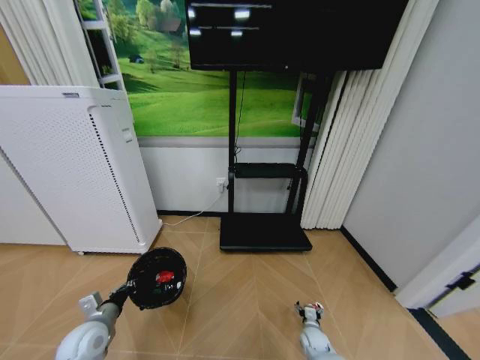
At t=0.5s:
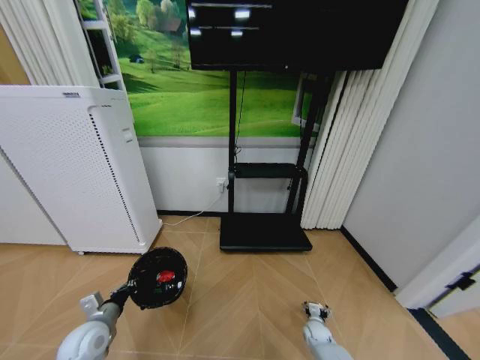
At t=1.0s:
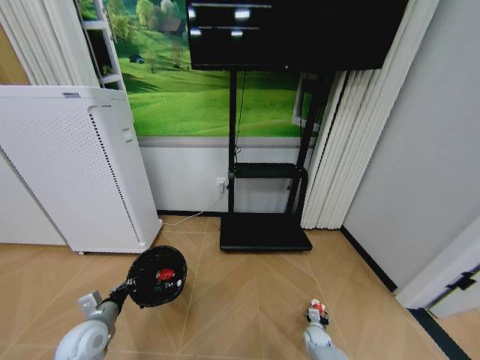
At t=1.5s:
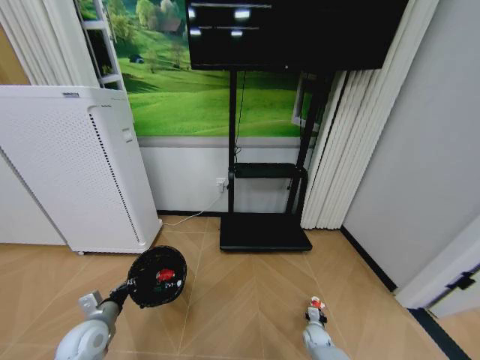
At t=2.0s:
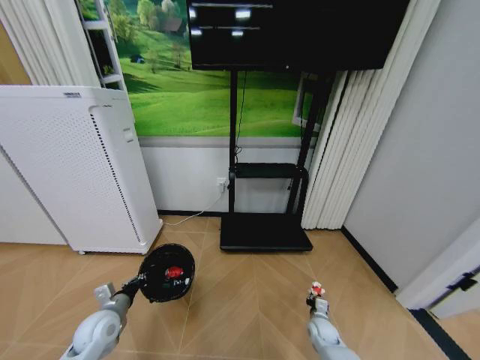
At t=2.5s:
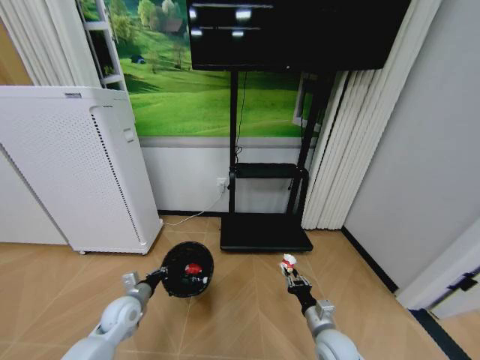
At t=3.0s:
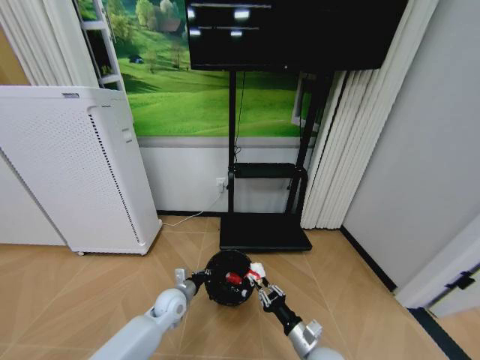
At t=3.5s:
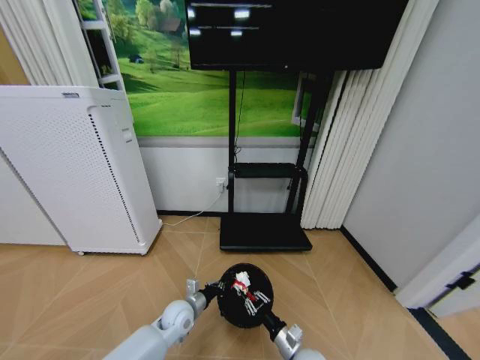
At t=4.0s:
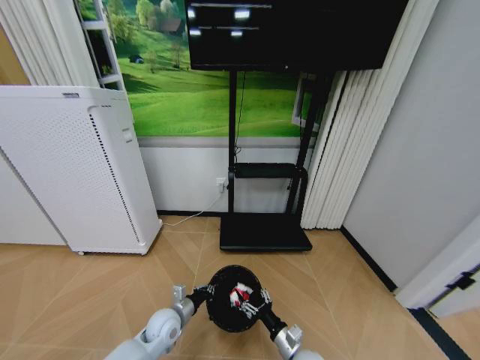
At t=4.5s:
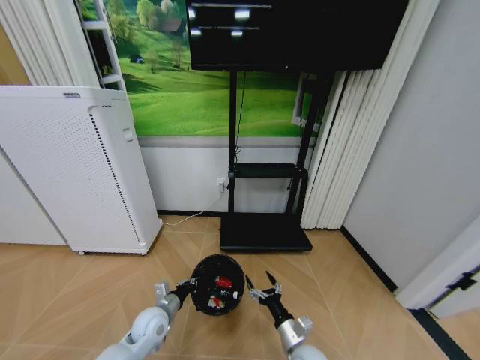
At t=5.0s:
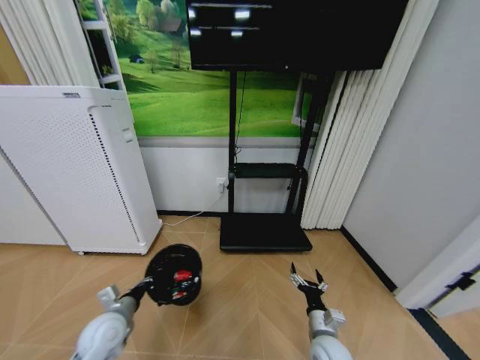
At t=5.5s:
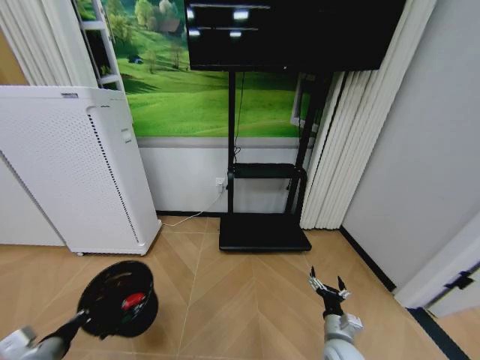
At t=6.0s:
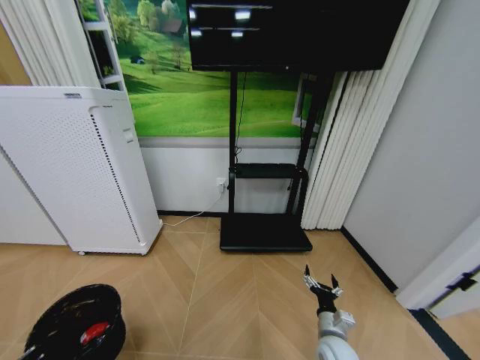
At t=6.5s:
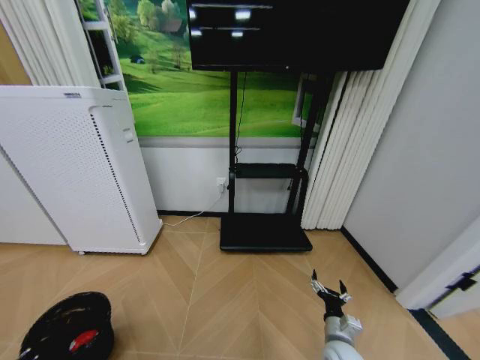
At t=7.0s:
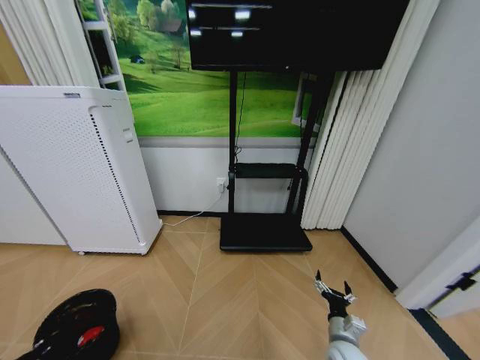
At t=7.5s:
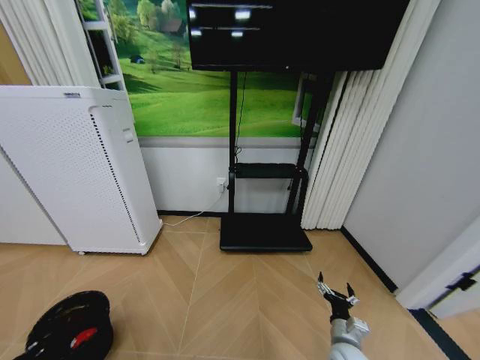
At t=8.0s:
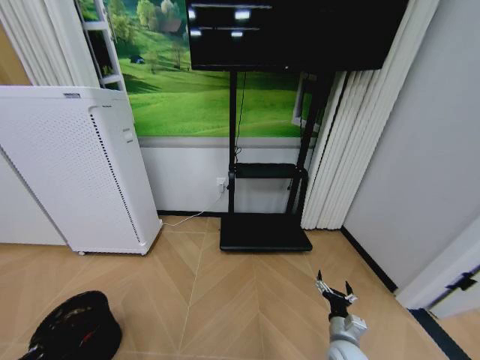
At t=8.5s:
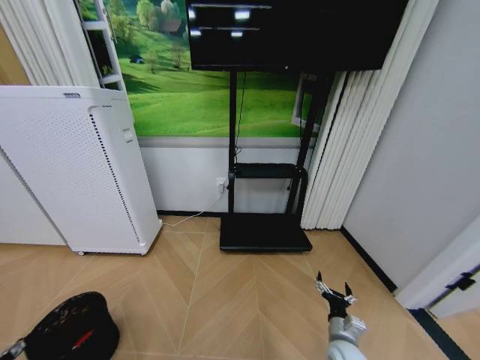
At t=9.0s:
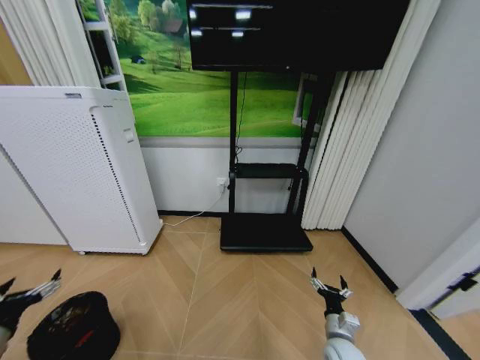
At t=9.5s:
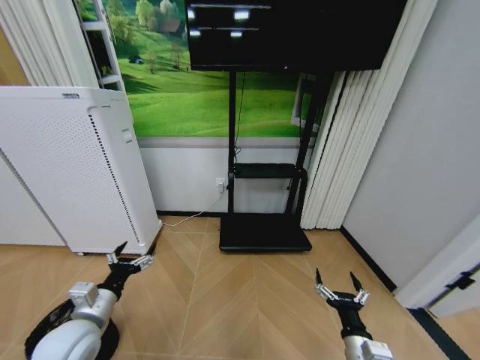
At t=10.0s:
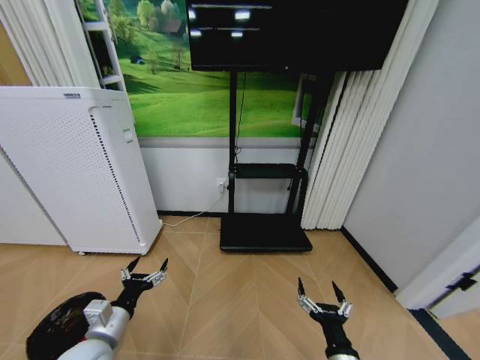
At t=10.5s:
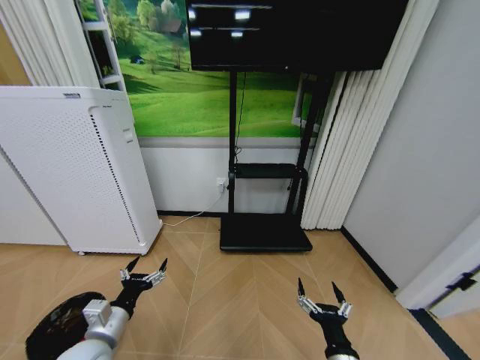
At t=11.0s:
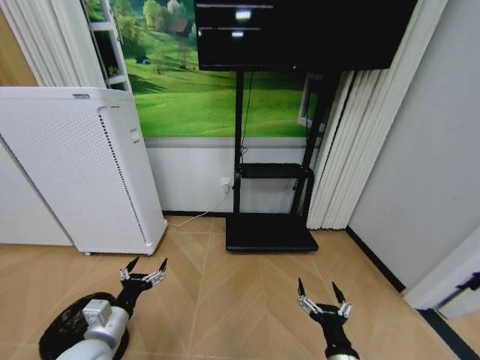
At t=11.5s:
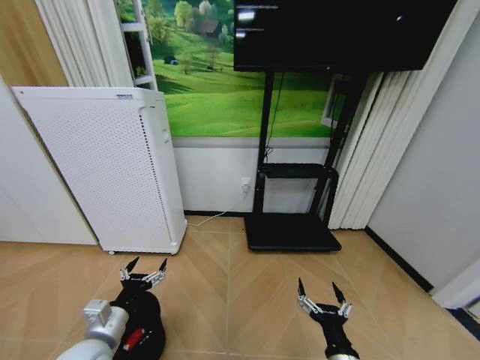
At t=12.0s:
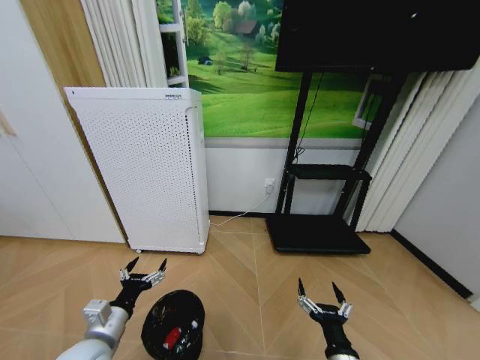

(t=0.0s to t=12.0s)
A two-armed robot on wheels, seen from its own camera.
Task of the whole recording: Pick up the trash bin and place the garbage on the floor into it.
t=0.0s - t=2.0s: The right gripper closes.
t=2.0s - t=4.0s: The right gripper goes approximately 20 cm to the left, backward and upward, and opens up. Meanwhile the left gripper travels to the right by some 15 cm.
t=4.0s - t=6.0s: The right gripper moves to the right, roughly 10 cm, while the left gripper heads to the left, backward and upward, covering roughly 35 cm.
t=6.0s - t=8.0s: The left gripper shifts about 10 cm downward and to the left.
t=8.0s - t=10.0s: The left gripper travels to the right and upward by approximately 30 cm, and opens its fingers, while the right gripper heads backward, upward and to the left, covering approximately 20 cm.

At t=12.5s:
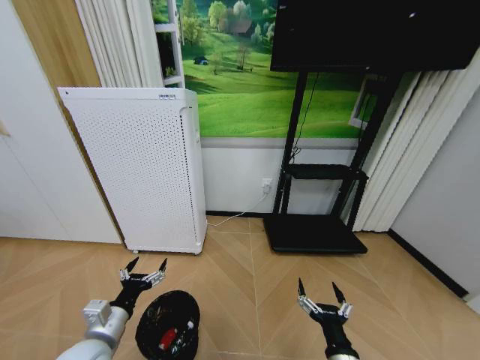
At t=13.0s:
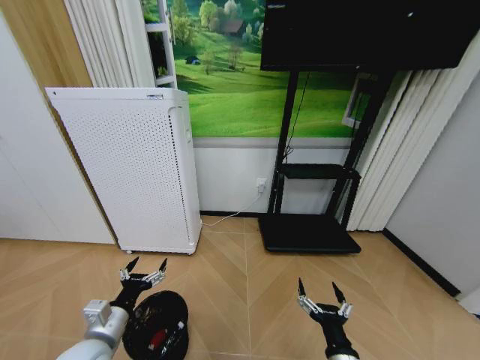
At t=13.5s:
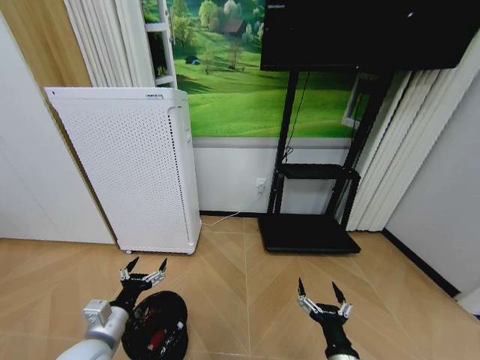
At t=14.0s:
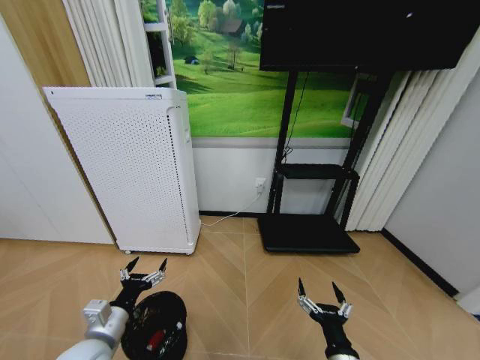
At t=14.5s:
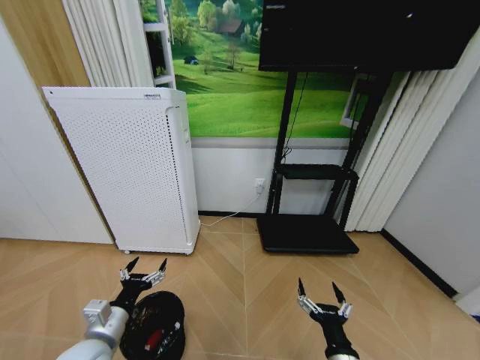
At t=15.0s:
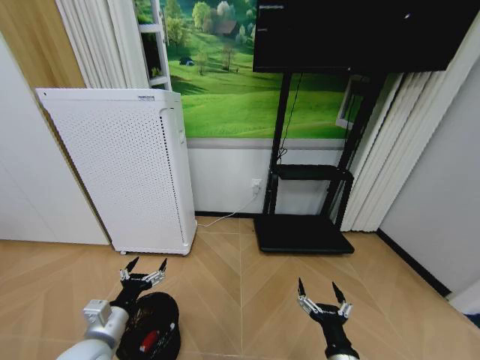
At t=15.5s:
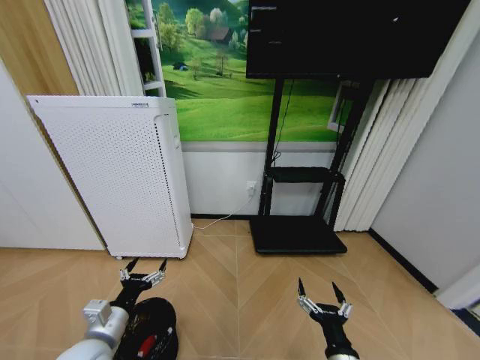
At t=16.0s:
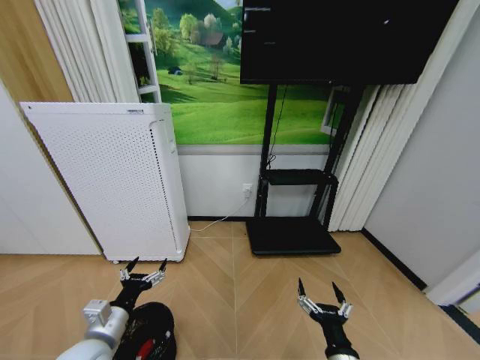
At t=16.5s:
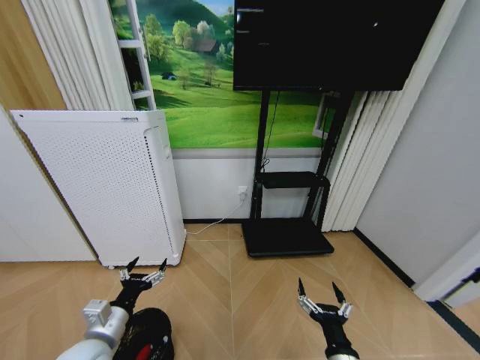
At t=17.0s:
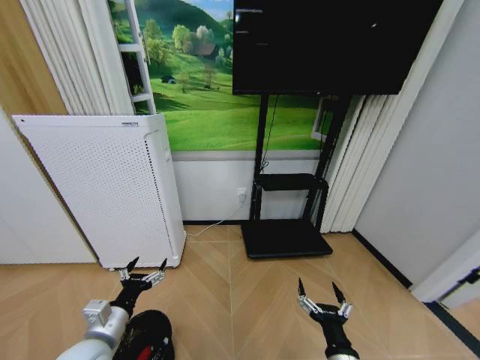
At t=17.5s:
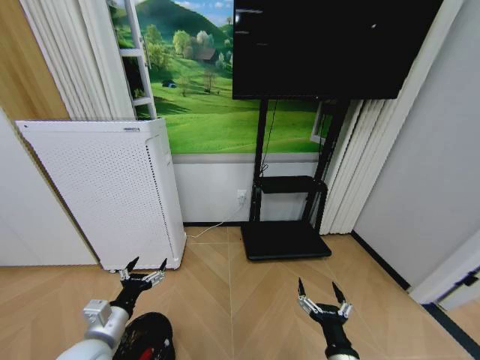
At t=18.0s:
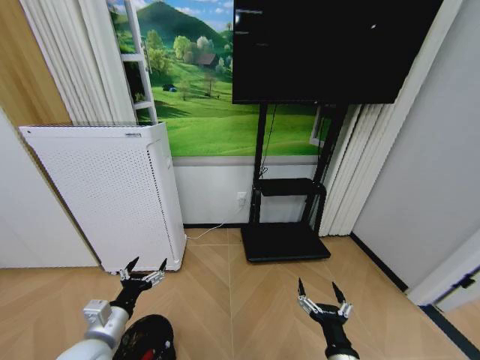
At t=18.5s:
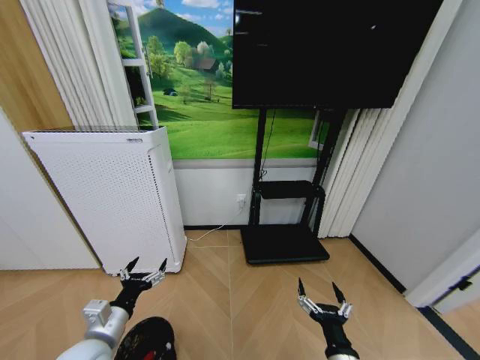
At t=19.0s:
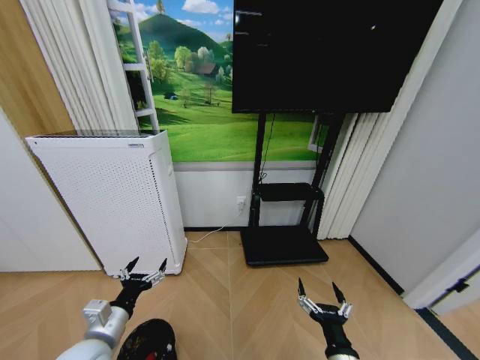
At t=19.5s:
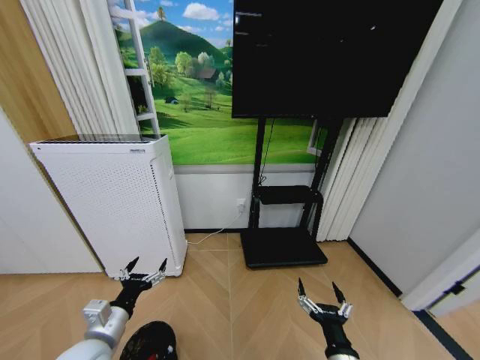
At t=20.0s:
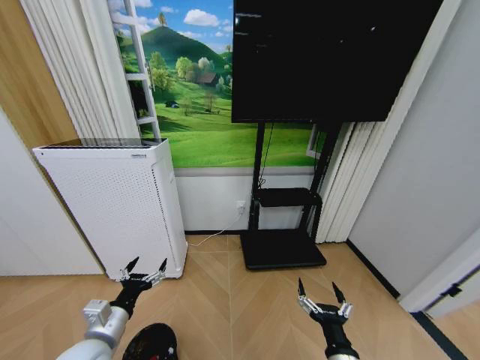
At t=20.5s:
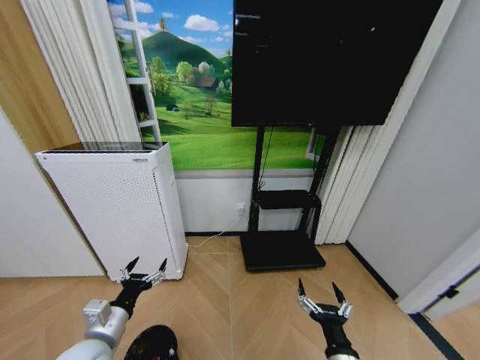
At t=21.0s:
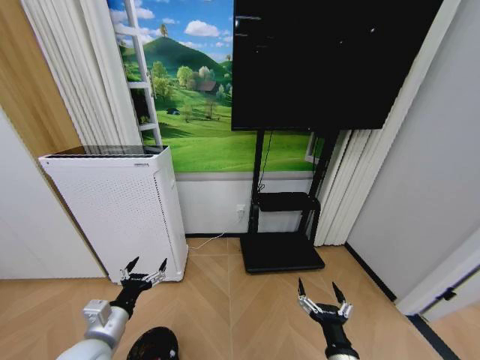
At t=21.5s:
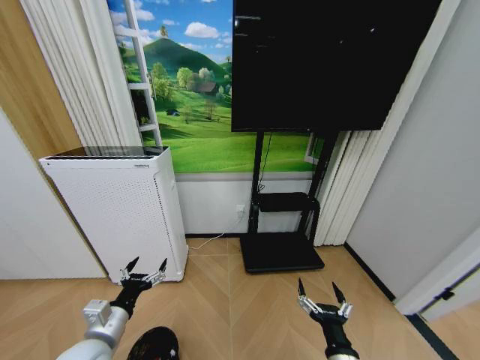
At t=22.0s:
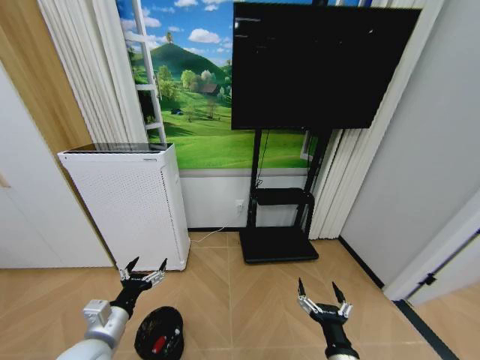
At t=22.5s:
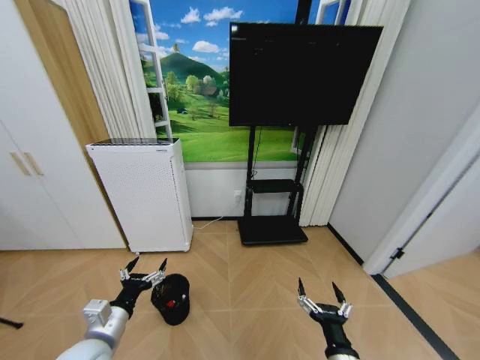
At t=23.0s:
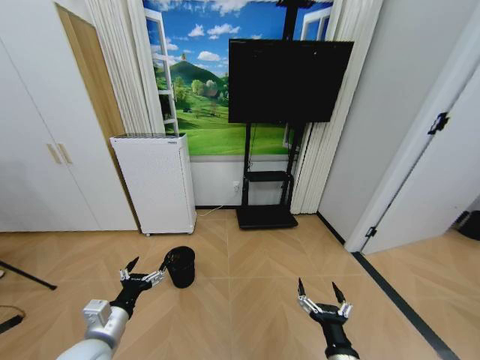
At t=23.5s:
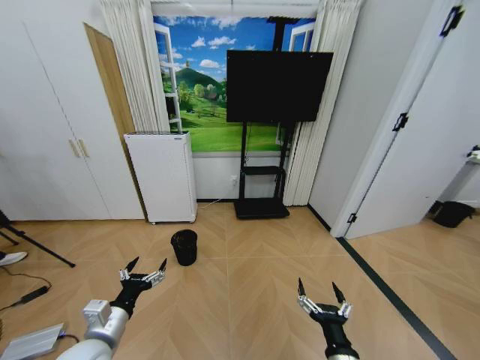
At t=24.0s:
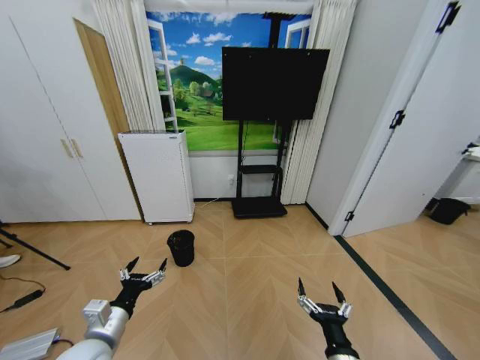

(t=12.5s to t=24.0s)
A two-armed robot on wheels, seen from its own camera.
Task of the whole recording: Pick up the trash bin and place the garbage on the floor into it.
t=12.5s - t=14.5s: Both grippers stay about where they are.
t=16.5s - t=20.0s: Both grippers stay put.

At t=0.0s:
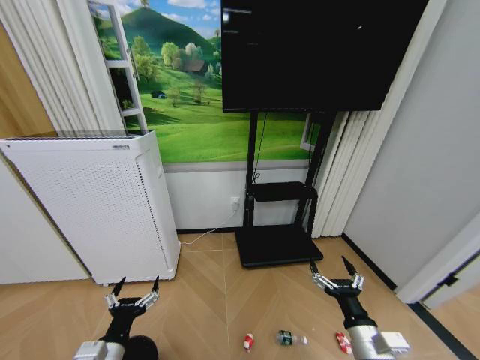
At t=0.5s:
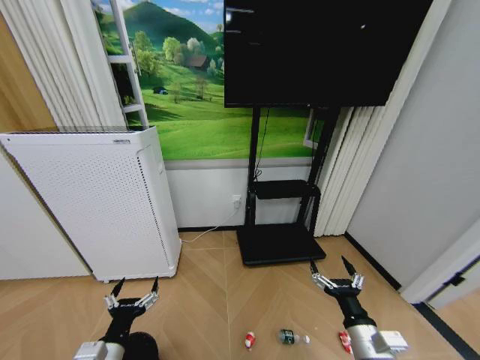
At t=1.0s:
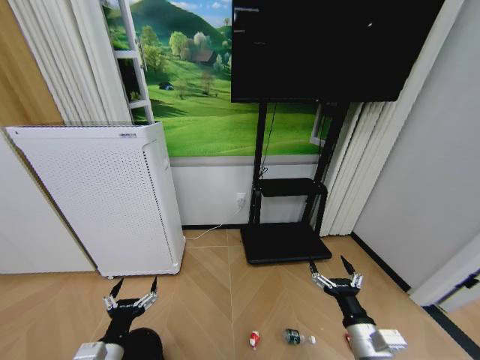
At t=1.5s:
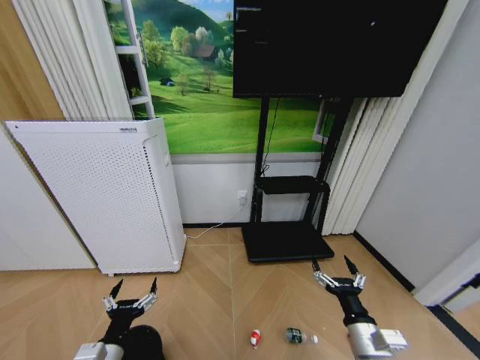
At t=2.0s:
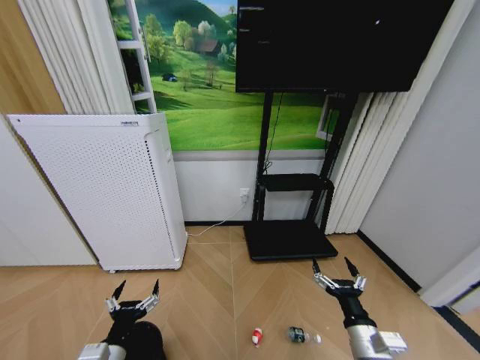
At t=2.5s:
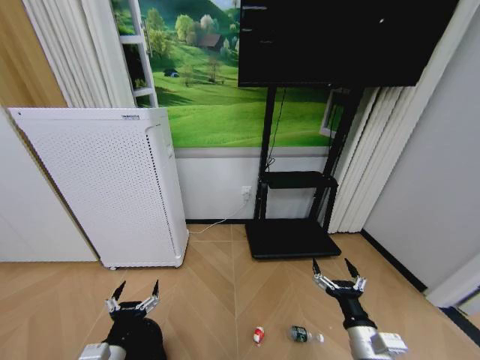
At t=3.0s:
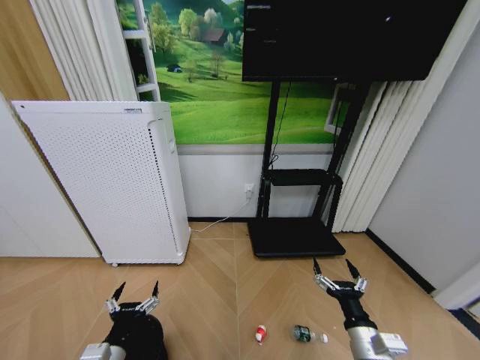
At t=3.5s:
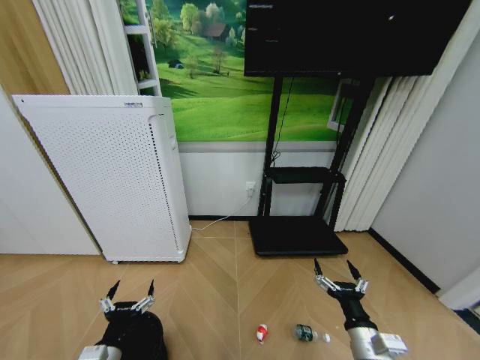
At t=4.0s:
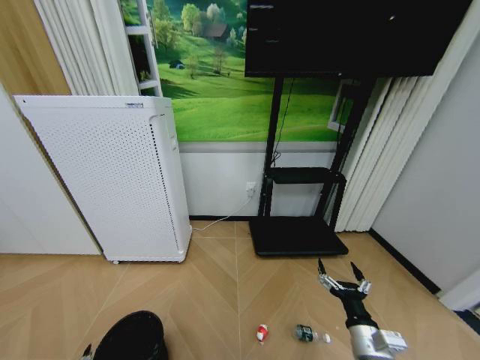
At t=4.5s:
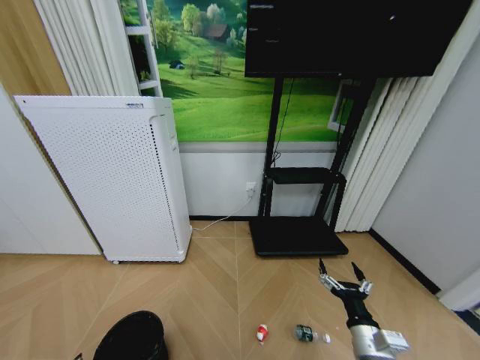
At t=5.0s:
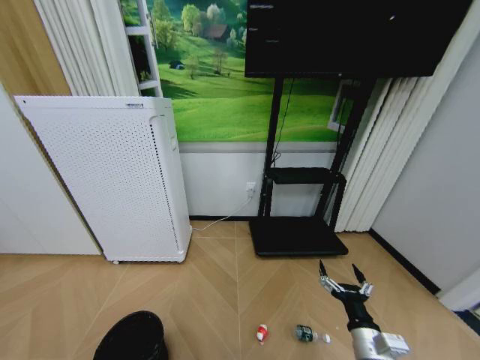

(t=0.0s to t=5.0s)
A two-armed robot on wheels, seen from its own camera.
Task of the whole recording: Pick up the trash bin and place the garbage on the floor into it.
t=2.5s - t=5.0s: The left gripper is displaced to the left and downward by roughly 15 cm.
